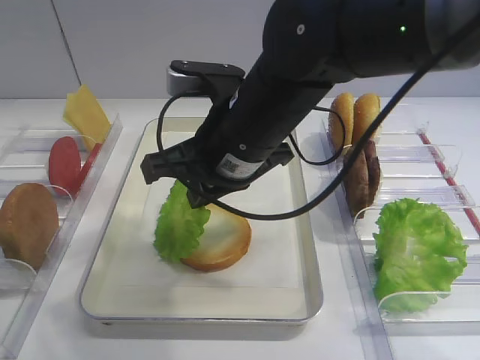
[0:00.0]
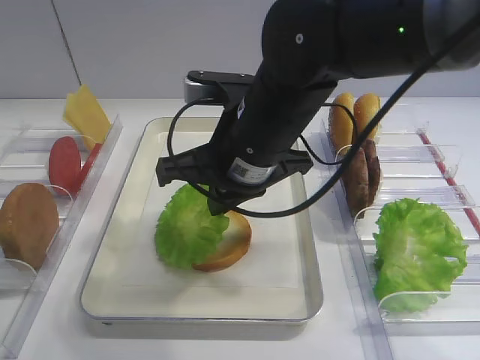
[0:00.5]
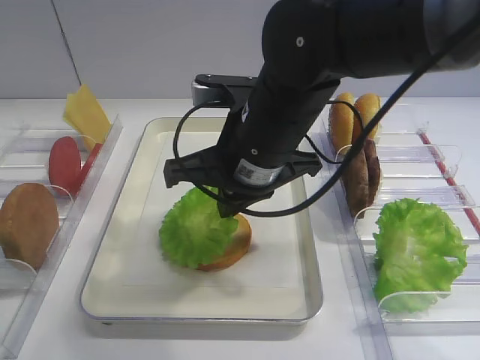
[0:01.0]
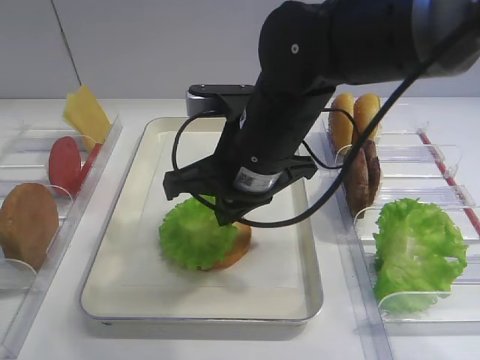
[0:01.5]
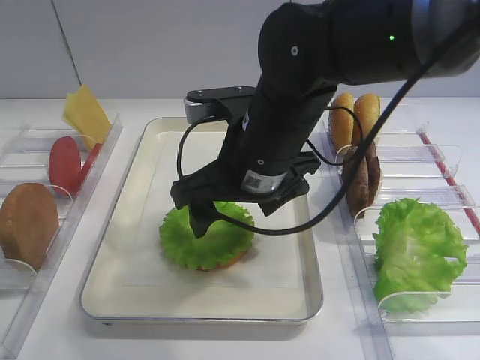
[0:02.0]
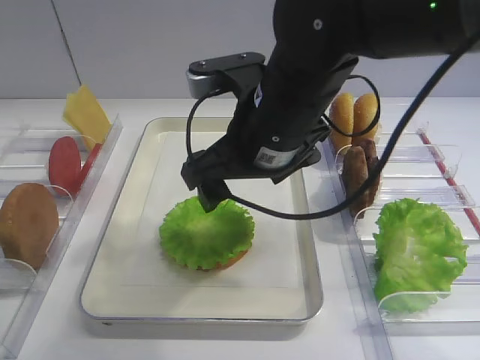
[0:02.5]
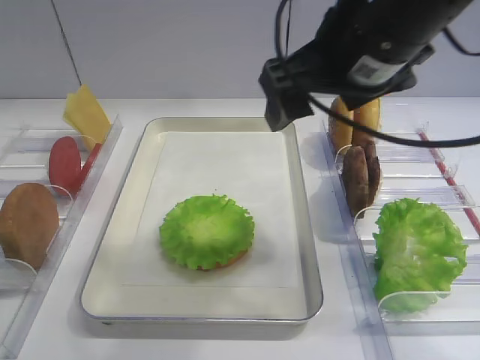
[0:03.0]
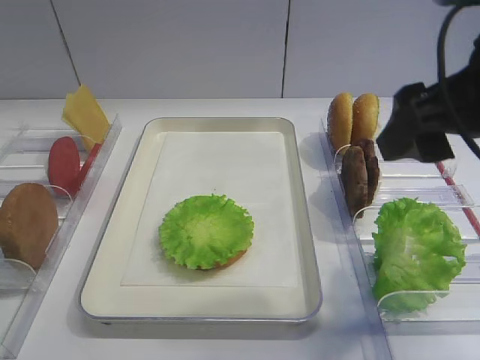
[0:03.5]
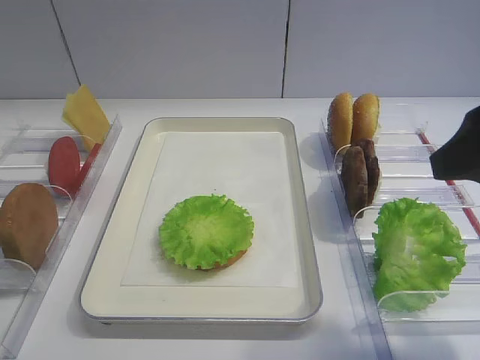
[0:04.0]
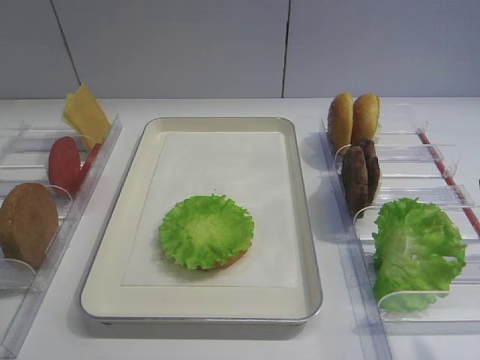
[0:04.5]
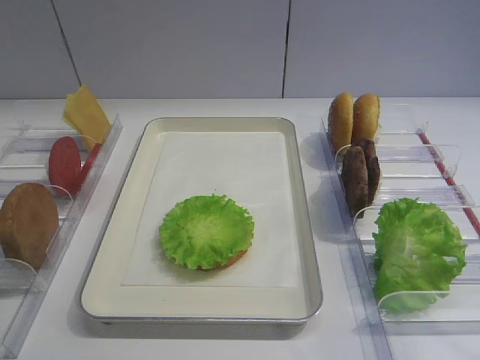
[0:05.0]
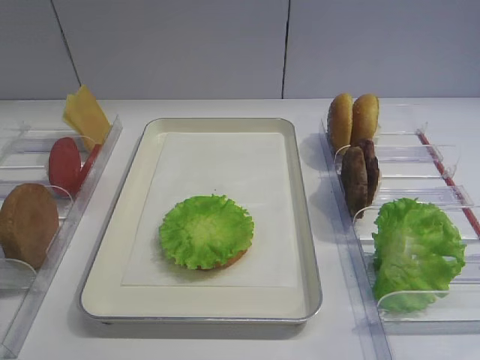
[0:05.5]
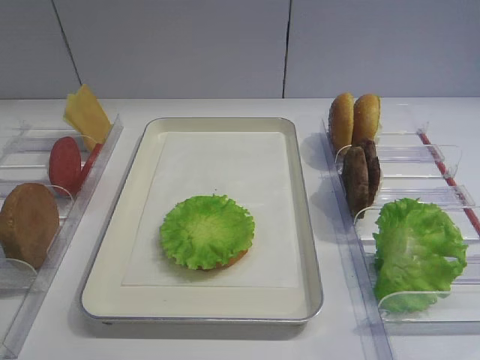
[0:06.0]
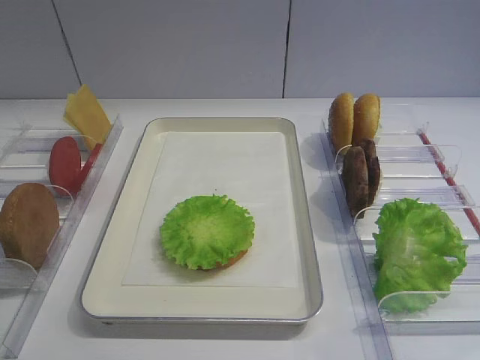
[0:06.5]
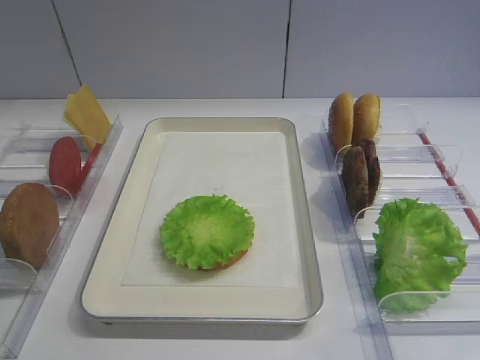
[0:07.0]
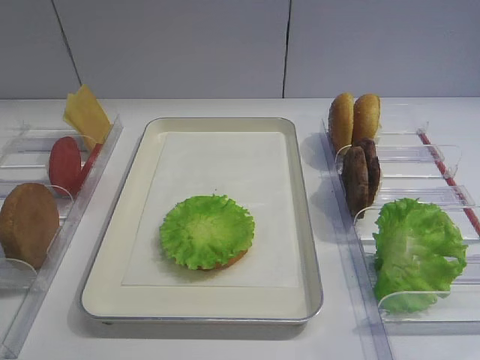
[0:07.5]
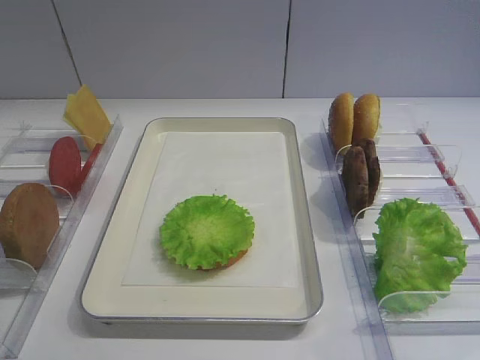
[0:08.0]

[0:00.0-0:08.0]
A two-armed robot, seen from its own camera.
Step, 0:00.0 to 0:02.5: Place the lettuce leaf on the bread slice with the right gripper.
0:00.0 to 0:02.0: The right gripper opens its fingers.
0:02.0 to 0:04.0: The right gripper moves to the right, backward and upward, approximately 25 cm.
0:04.0 to 0:06.0: The right gripper goes some 15 cm backward.
0:06.0 to 0:08.0: The two grippers keep their place.

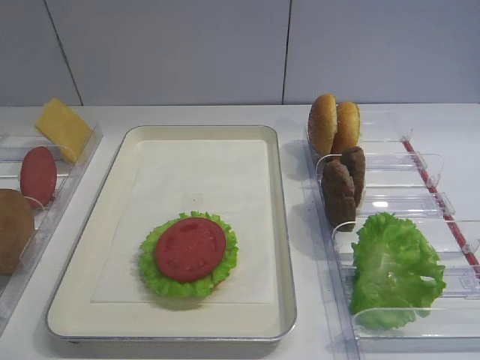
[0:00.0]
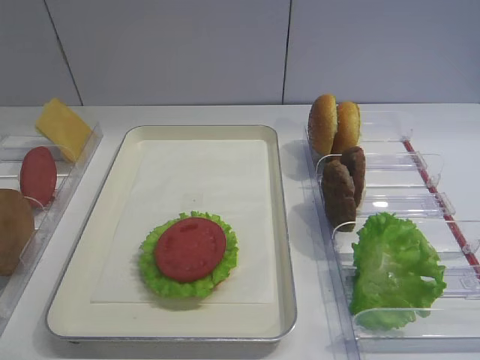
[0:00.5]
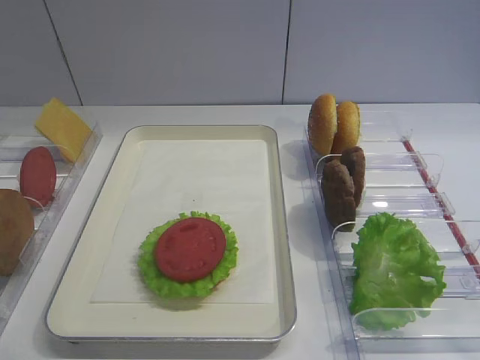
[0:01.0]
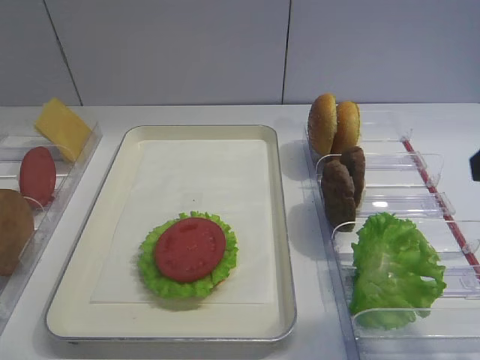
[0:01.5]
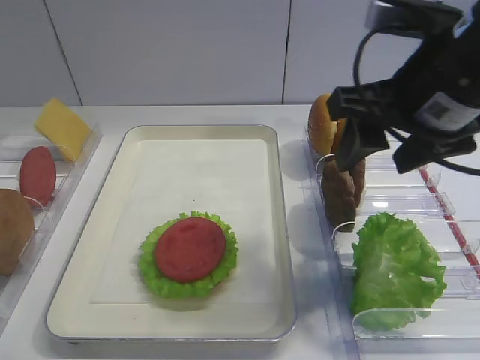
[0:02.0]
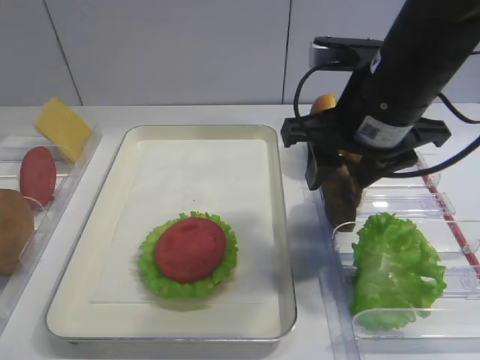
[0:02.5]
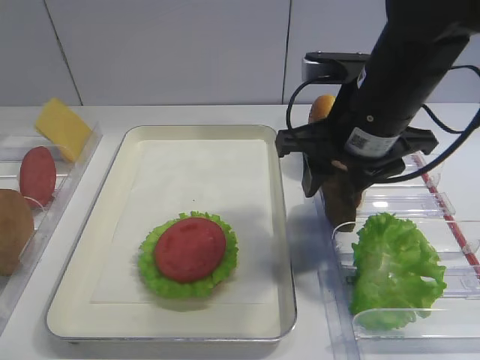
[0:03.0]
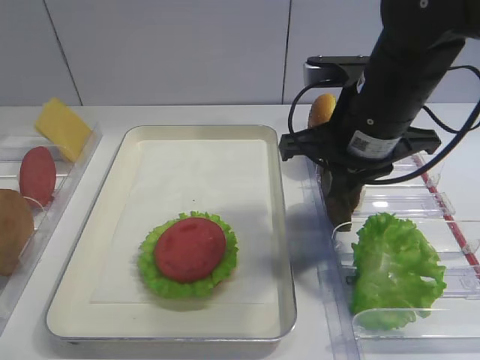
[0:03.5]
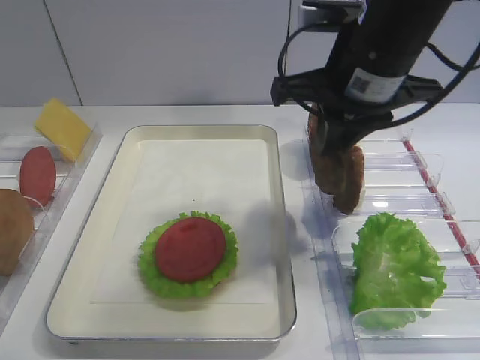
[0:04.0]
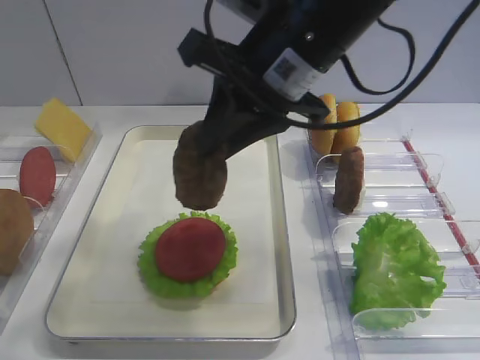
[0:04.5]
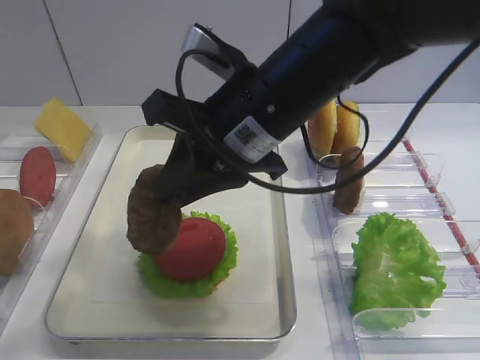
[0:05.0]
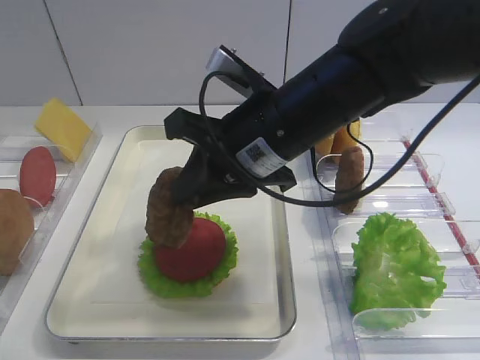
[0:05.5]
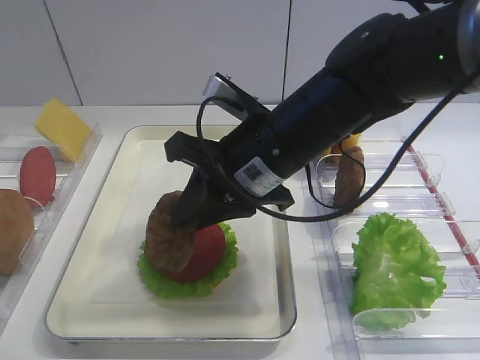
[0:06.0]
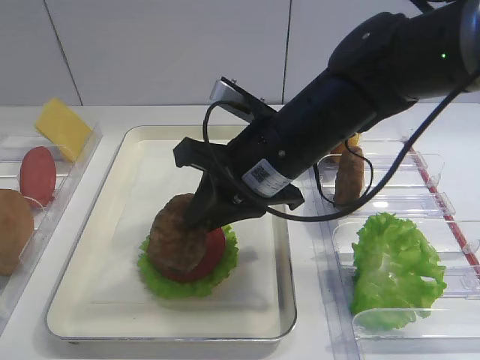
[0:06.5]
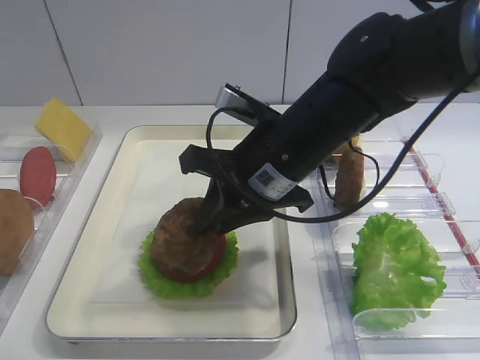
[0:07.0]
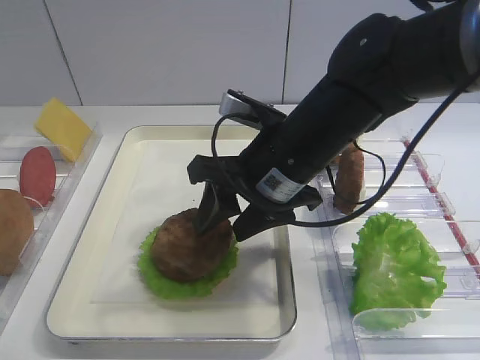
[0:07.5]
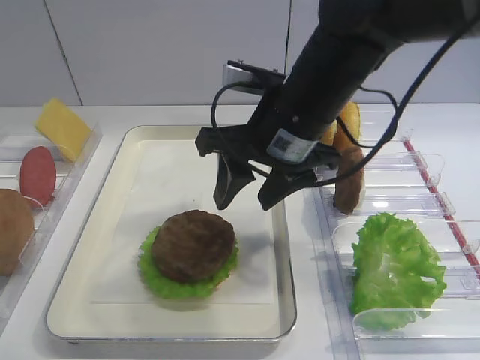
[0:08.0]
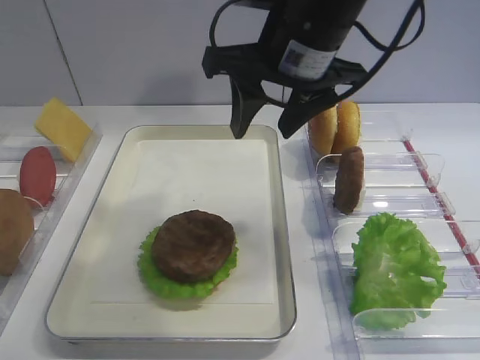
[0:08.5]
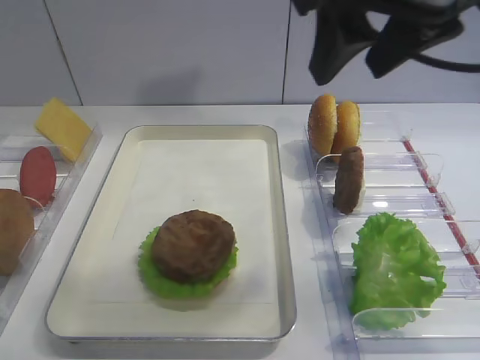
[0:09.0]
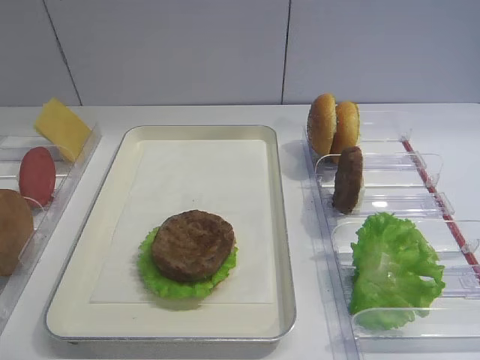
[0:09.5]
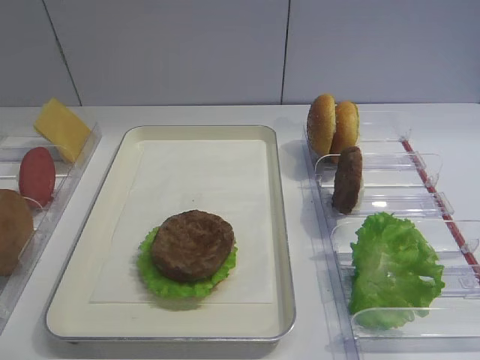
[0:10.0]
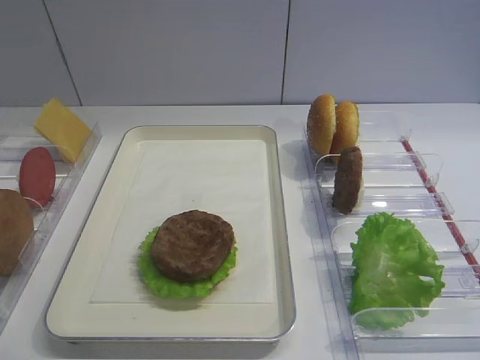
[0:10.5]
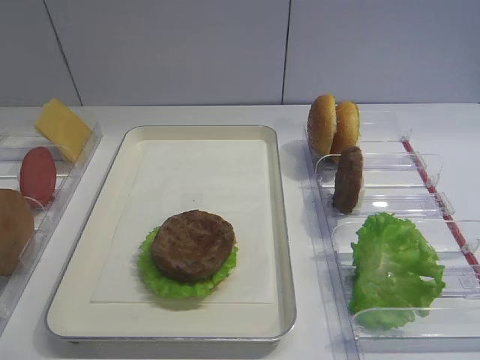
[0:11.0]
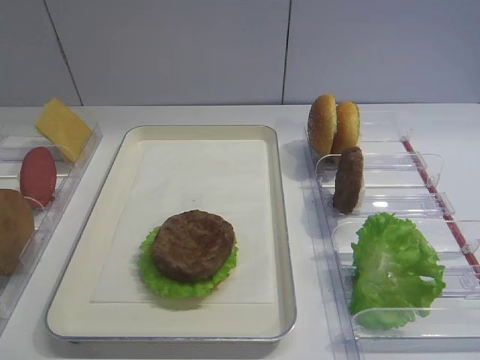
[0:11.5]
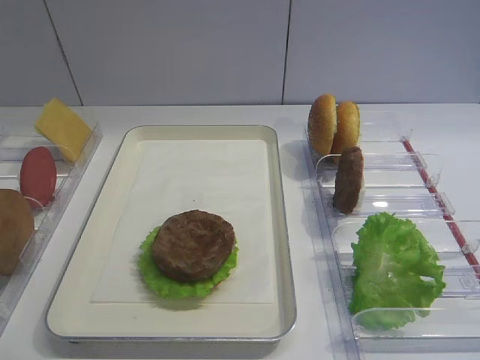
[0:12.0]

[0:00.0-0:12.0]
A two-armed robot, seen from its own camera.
Step, 0:00.0 to 0:04.0: Pick up the cutlet with the right gripper.
Step, 0:04.5 to 0:07.5: Place the cutlet on the tomato slice with the right gripper.
0:02.0 to 0:04.0: The right gripper is displaced forward by roughly 5 cm, and closes its fingers.
0:04.0 to 0:06.0: The right gripper travels to the left and downward by some 10 cm.
0:06.0 to 0:08.0: The right gripper opens up.
0:08.0 to 0:10.0: The right gripper heads backward, to the right and upward, covering about 35 cm.

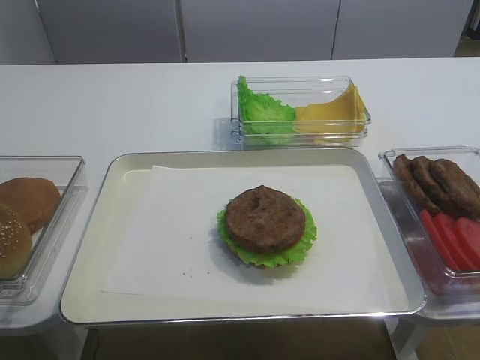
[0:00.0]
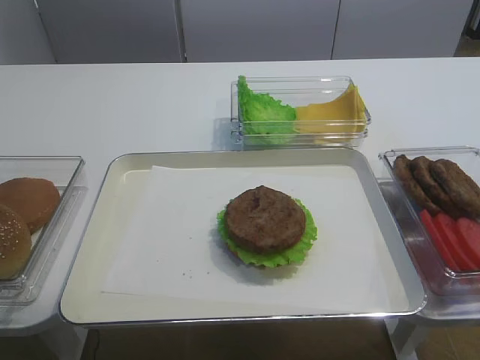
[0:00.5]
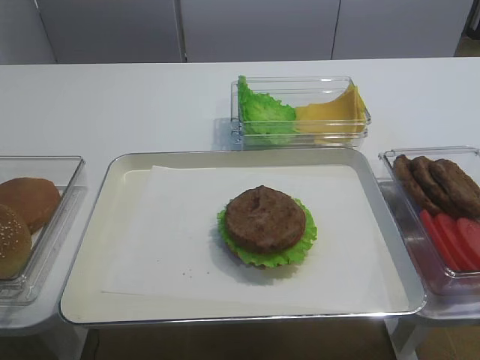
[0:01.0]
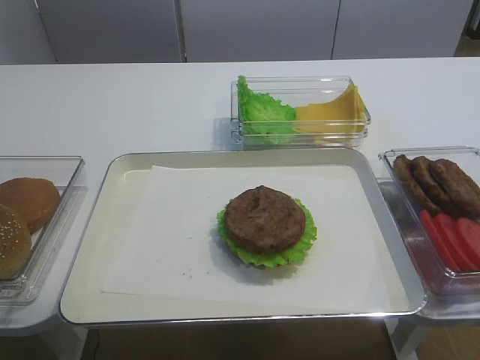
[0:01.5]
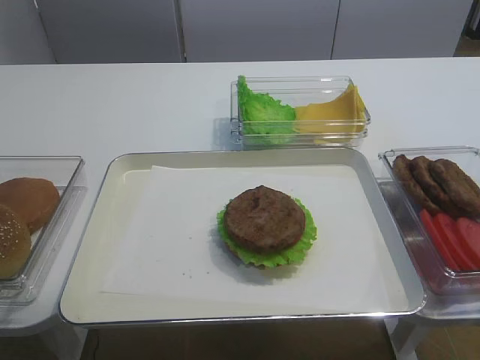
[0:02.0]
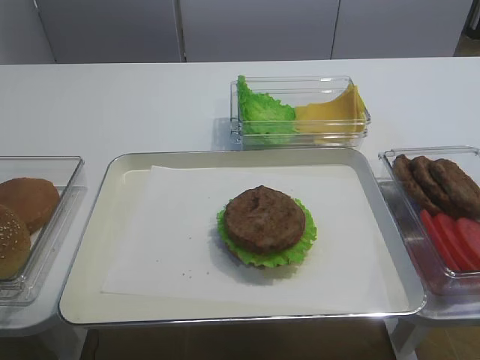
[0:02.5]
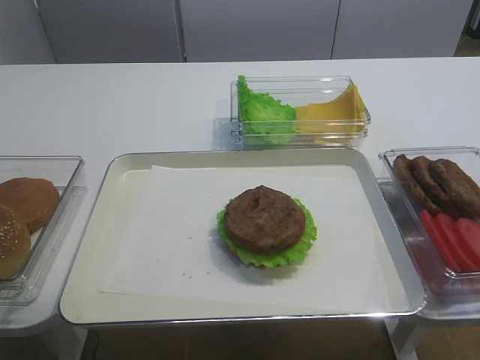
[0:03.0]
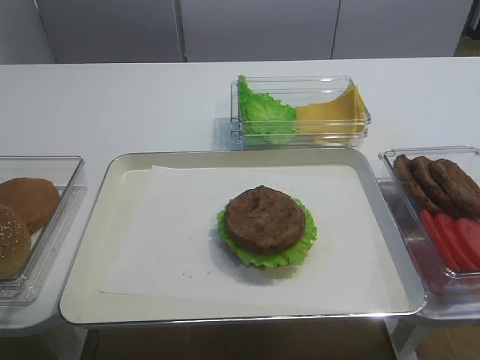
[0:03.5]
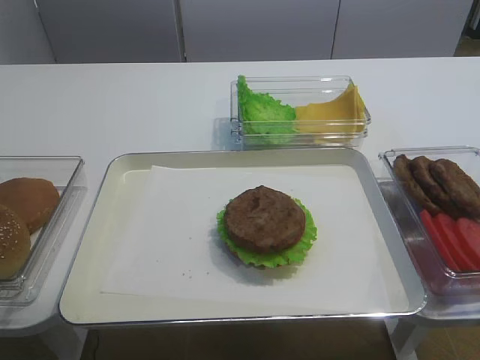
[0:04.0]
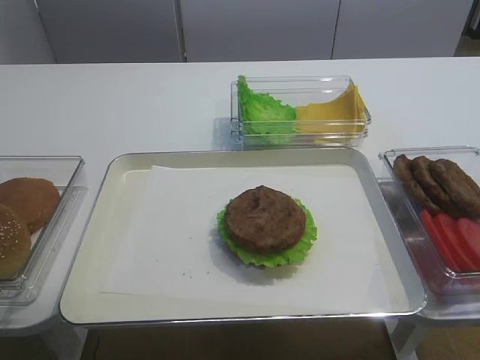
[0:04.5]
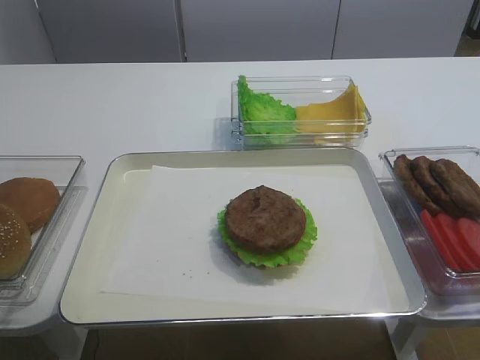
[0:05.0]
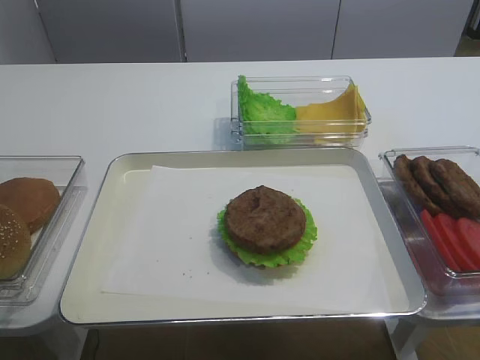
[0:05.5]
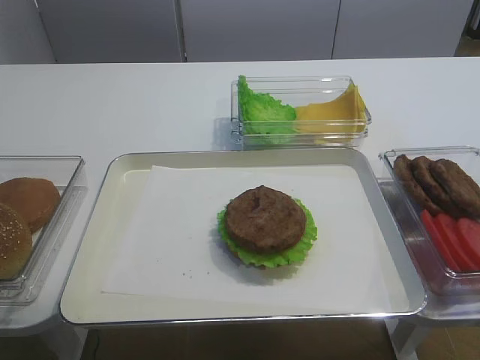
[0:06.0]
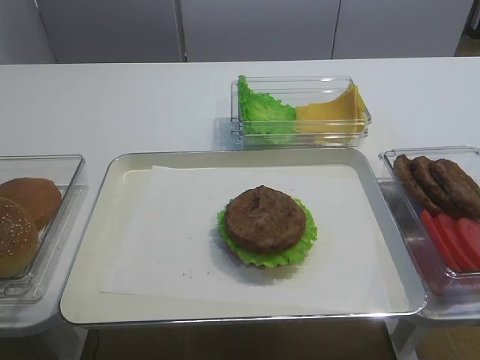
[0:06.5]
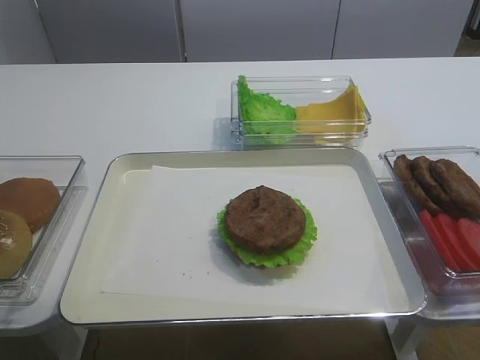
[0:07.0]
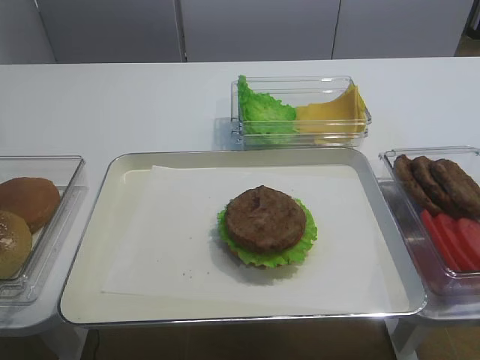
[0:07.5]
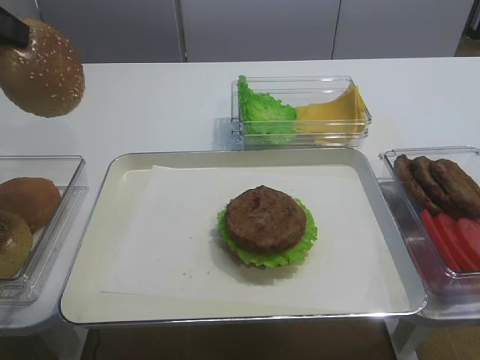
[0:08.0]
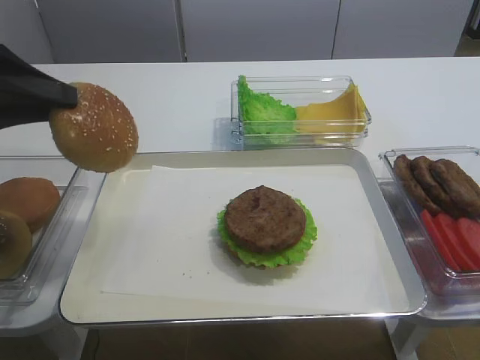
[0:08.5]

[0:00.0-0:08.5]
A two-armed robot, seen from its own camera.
0:06.5 to 0:08.5: The left gripper is displaced to the right by approximately 10 cm.
